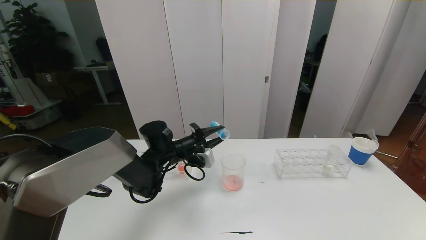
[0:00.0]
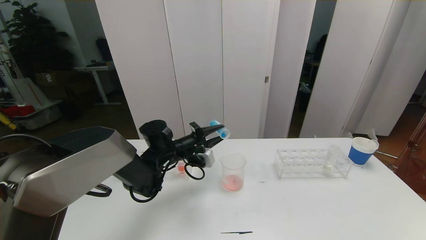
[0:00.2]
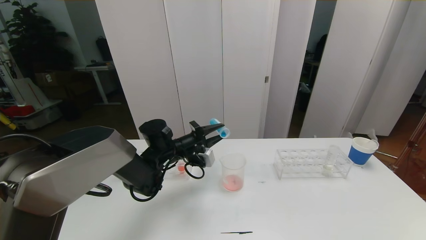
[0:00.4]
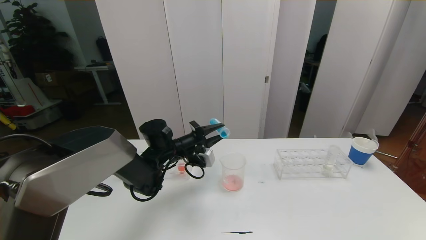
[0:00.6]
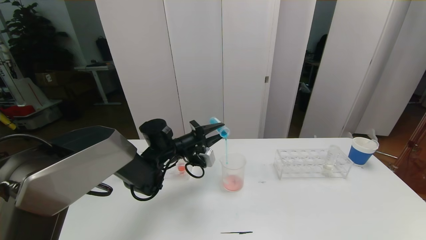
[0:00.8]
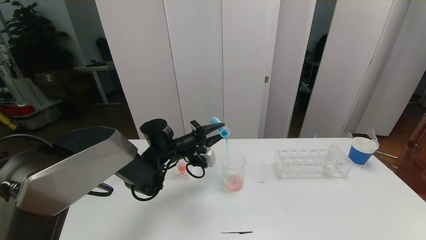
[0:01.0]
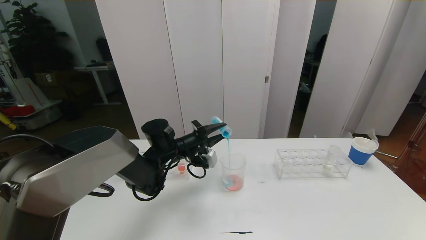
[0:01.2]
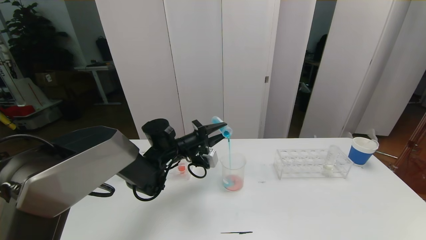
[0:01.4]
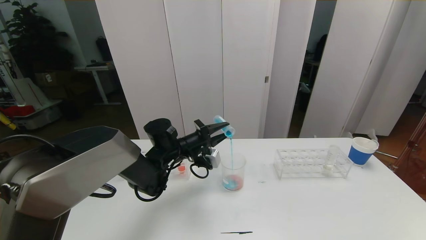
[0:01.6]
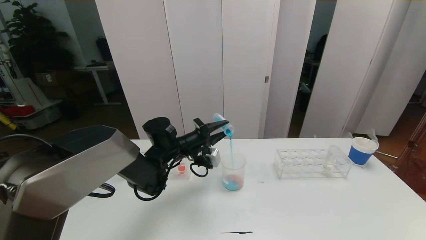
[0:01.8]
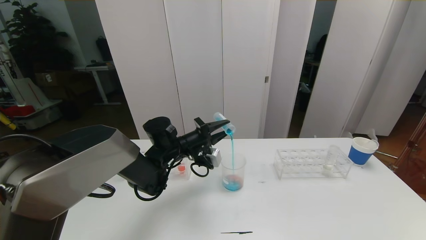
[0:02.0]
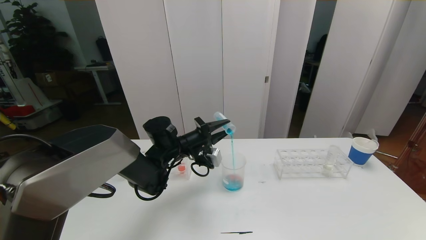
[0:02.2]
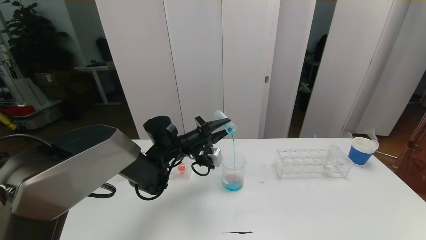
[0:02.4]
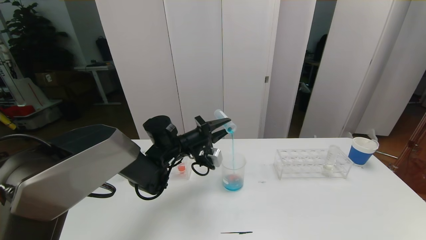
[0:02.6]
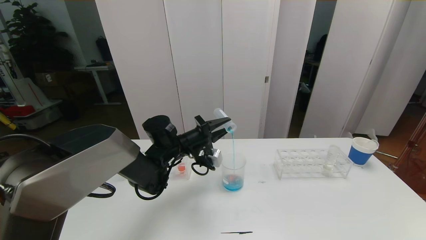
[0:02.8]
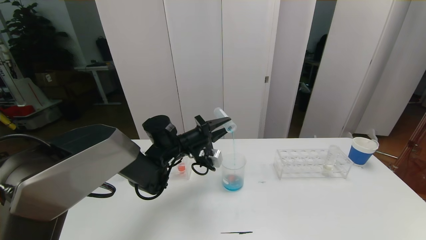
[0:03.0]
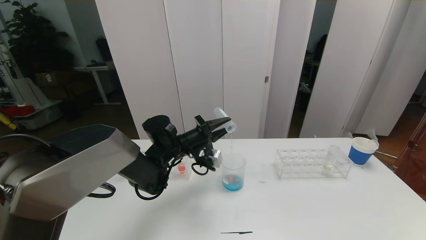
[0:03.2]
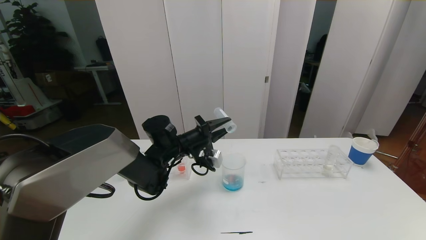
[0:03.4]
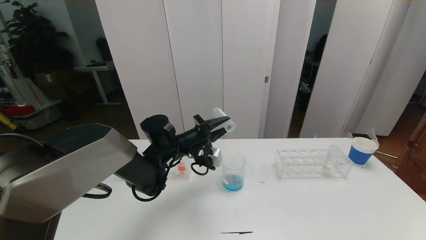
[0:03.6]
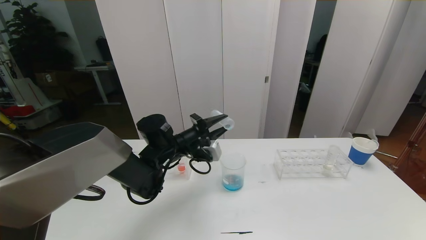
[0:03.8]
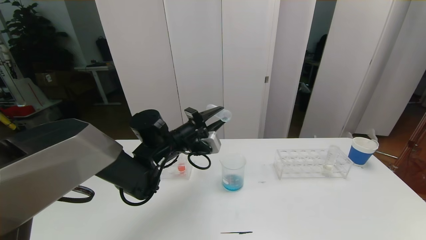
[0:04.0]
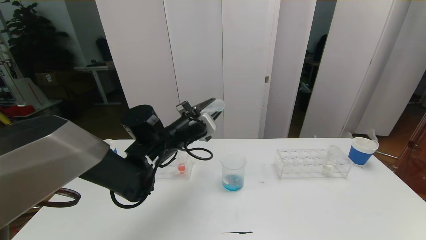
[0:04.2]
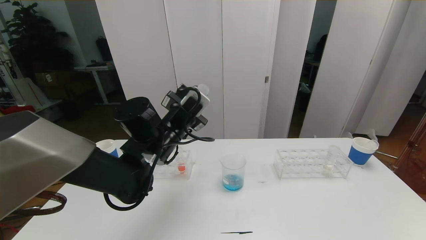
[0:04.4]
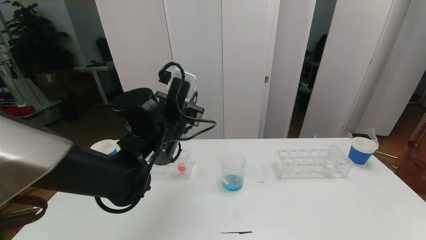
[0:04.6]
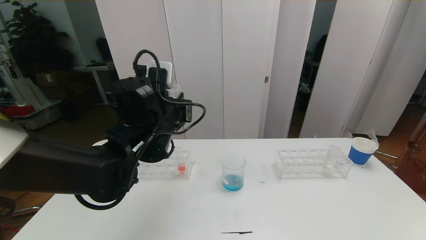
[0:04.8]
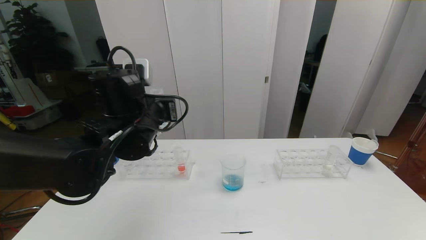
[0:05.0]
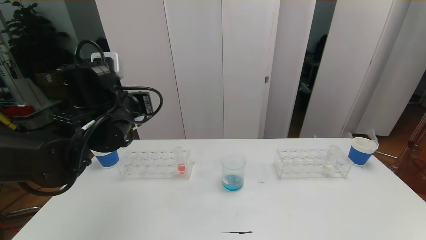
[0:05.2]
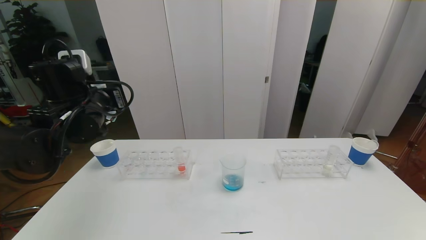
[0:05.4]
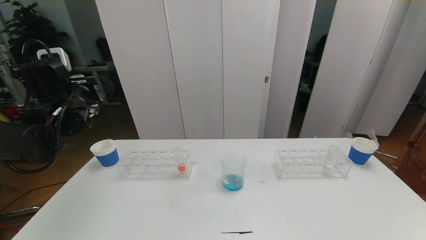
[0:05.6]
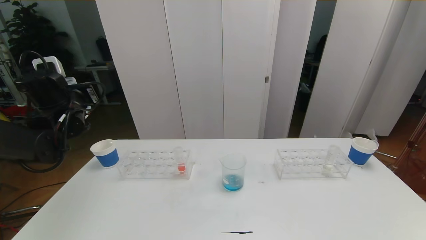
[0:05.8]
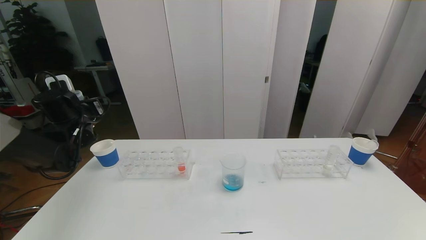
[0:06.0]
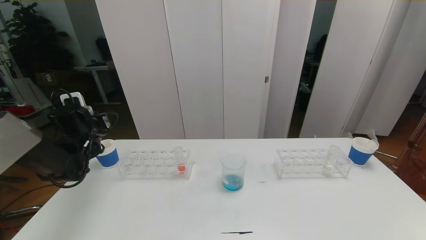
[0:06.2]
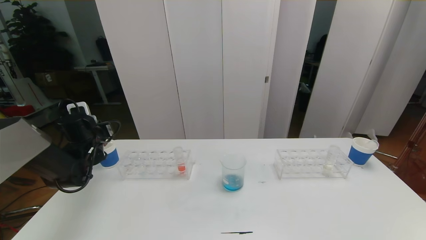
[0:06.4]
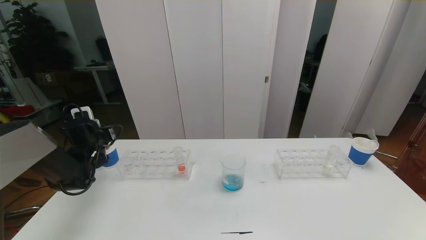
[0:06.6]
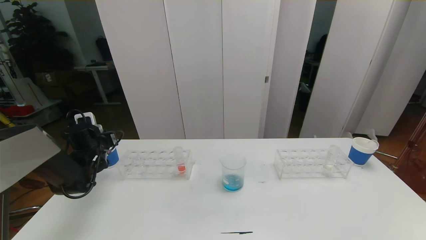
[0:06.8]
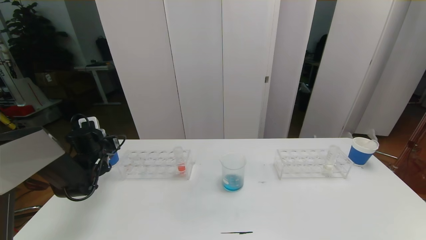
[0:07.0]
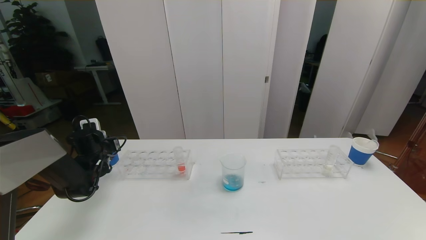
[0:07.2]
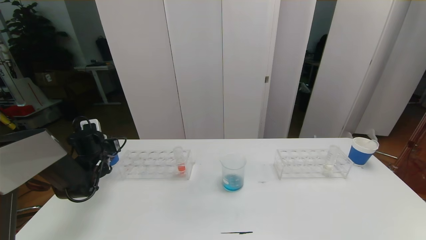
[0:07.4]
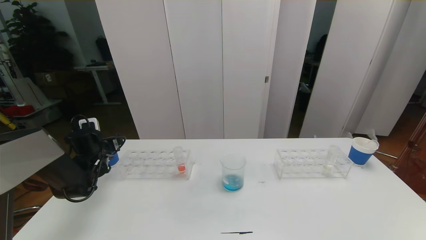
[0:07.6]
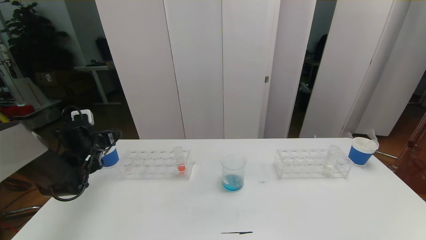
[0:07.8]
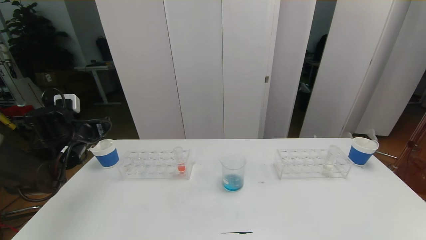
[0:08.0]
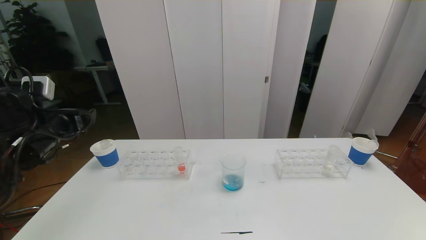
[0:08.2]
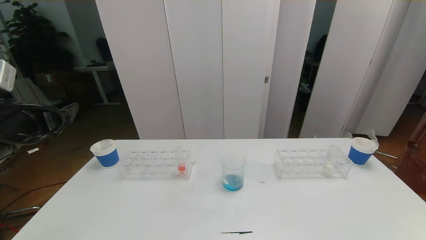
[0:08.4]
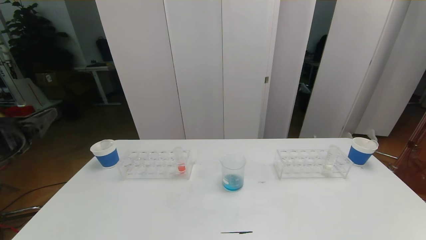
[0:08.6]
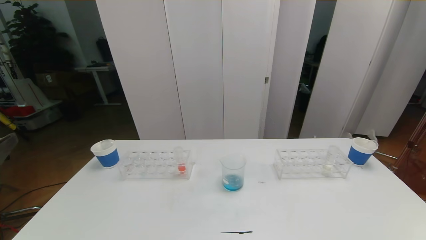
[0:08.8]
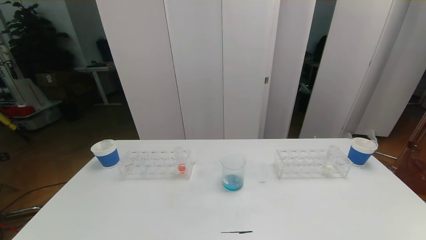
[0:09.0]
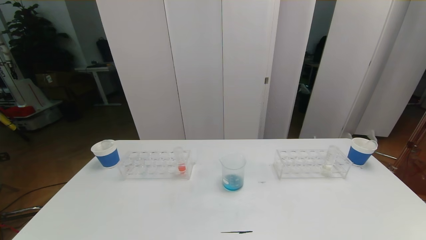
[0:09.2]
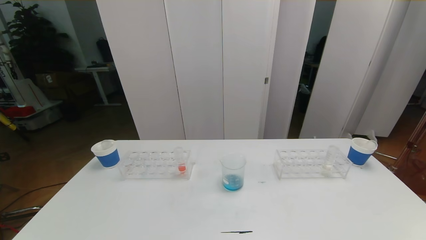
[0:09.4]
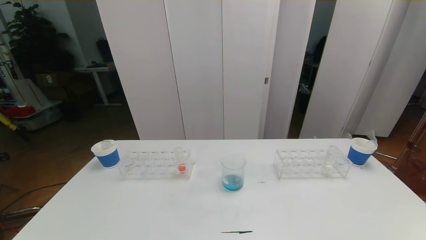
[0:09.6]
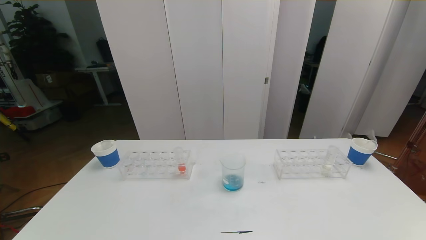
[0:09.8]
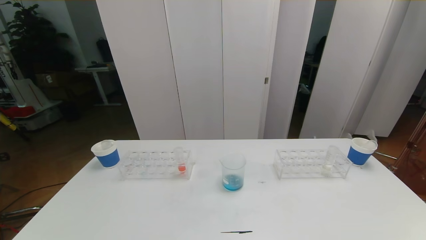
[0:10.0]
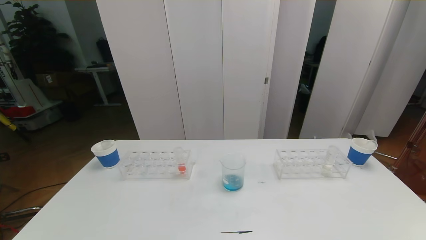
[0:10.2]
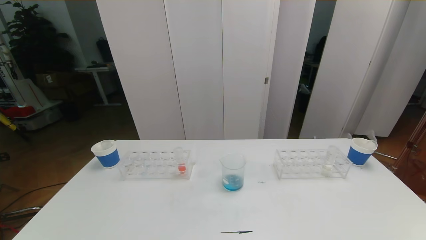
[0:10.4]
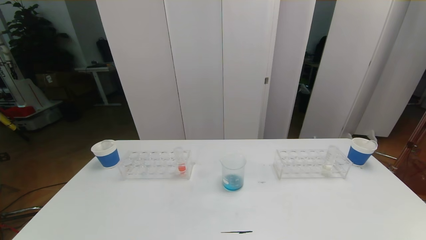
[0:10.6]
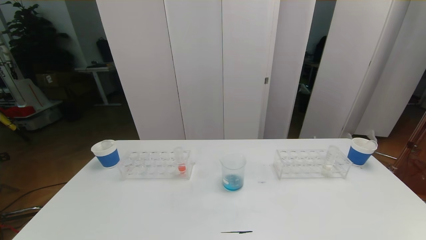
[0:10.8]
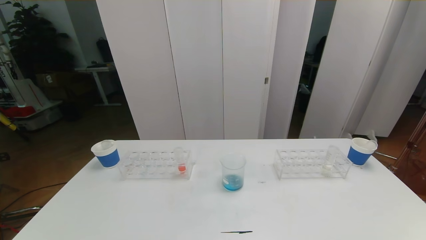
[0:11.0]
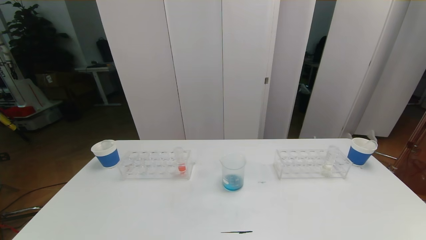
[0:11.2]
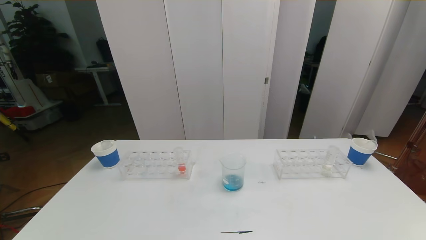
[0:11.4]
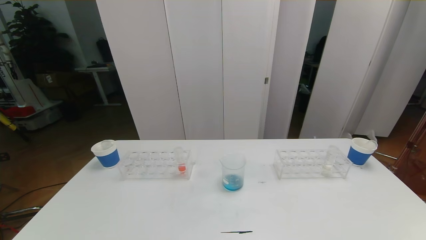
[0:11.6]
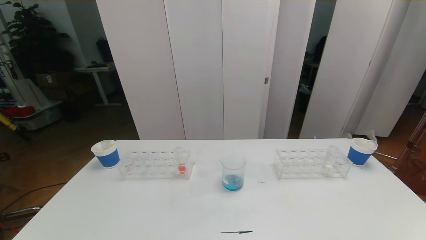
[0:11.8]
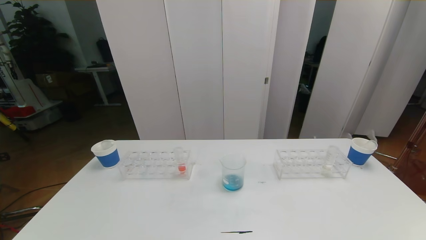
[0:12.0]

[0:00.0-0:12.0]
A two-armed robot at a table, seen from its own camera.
Task of the whole recording: pick up the test tube with red pigment the test tube with blue pigment and the test tube with white pigment by grippers and pour them into the beaker.
Step, 0:00.0 to 0:10.0: Pour the blue reagent into the graduated cylinder and place the test tube into the paper cup.
0:00.0 to 0:03.0: The grippers move only a little.
0:03.0 to 0:04.4: The left gripper moves upward and backward, some 10 cm.
0:04.4 to 0:06.0: The left gripper shifts roughly 25 cm to the left.
0:06.0 to 0:07.6: The left gripper travels downward by about 10 cm, and opens up.
0:07.6 to 0:09.0: The left gripper travels backward and upward by about 40 cm.
0:10.4 to 0:12.0: The two grippers keep their place.

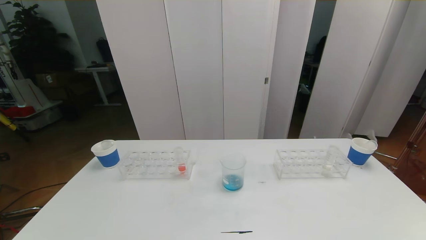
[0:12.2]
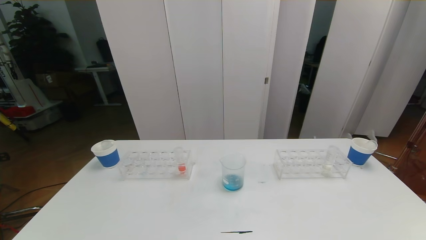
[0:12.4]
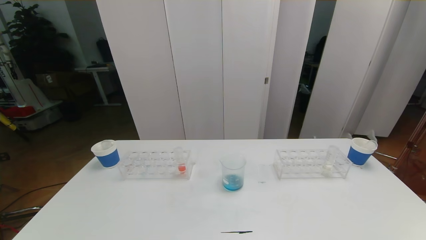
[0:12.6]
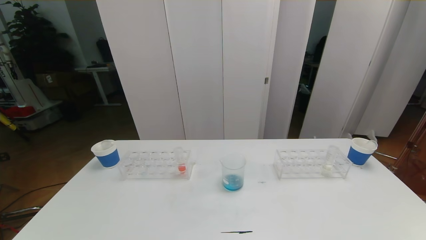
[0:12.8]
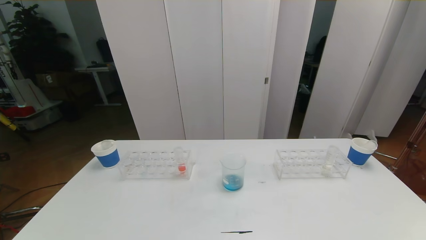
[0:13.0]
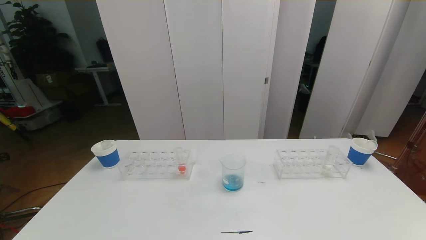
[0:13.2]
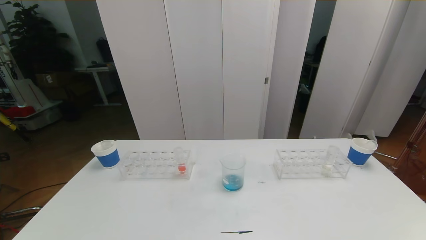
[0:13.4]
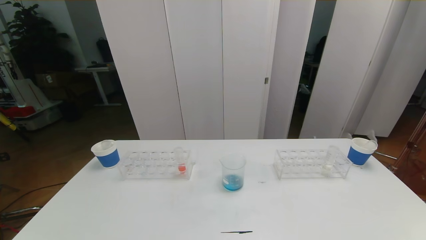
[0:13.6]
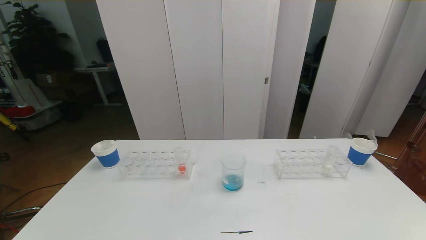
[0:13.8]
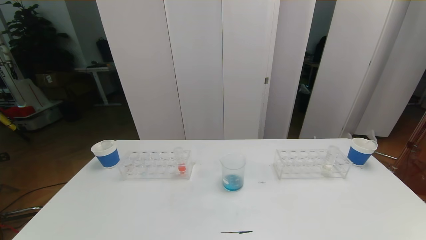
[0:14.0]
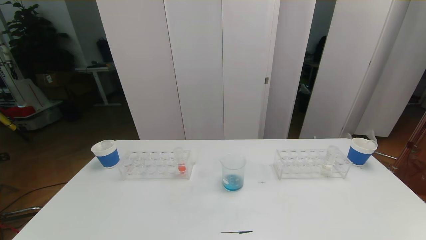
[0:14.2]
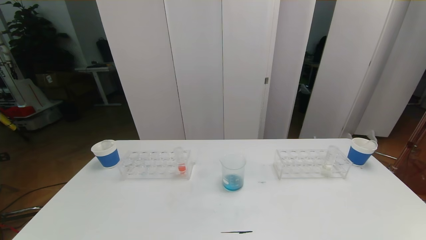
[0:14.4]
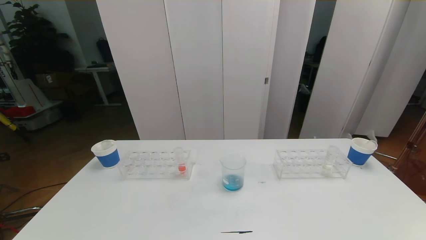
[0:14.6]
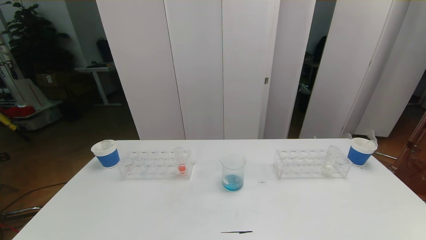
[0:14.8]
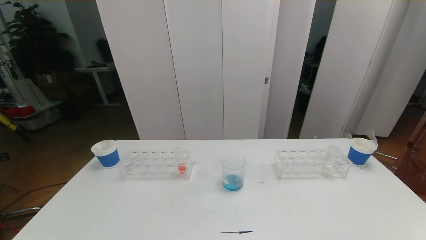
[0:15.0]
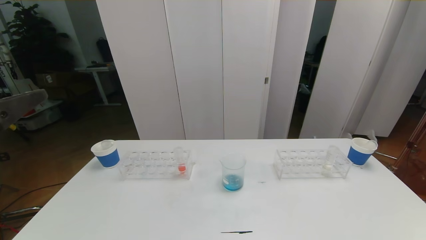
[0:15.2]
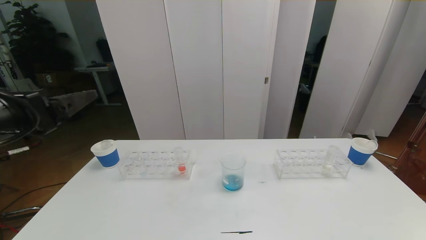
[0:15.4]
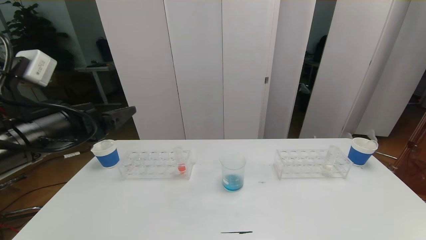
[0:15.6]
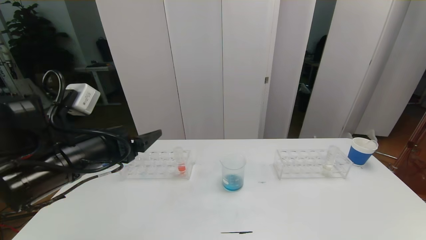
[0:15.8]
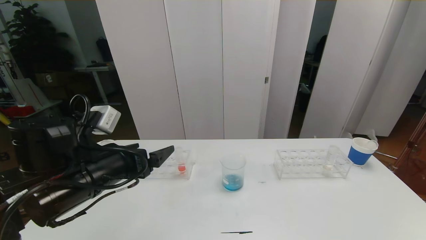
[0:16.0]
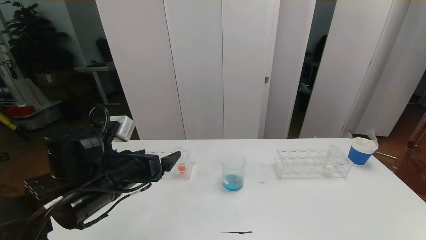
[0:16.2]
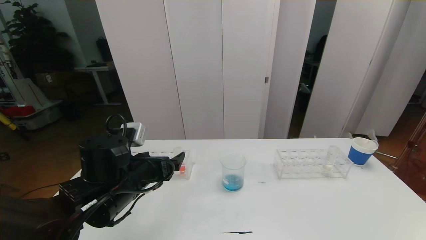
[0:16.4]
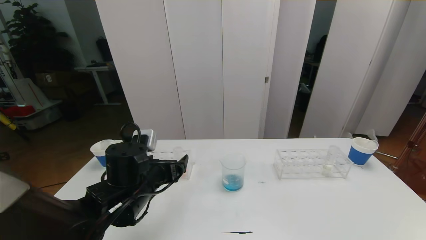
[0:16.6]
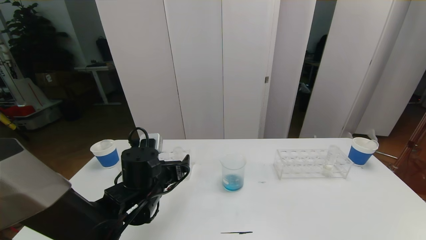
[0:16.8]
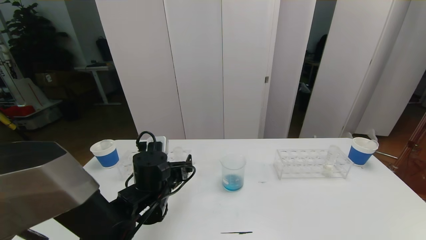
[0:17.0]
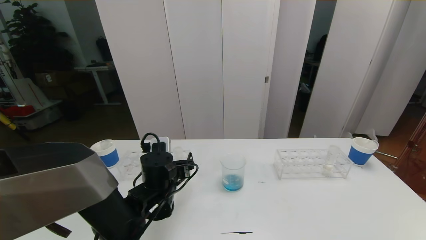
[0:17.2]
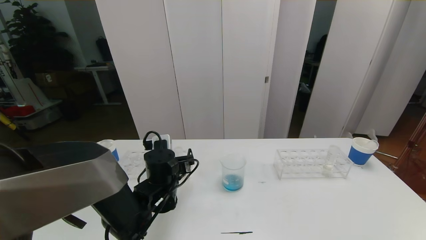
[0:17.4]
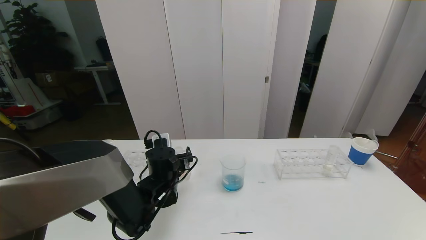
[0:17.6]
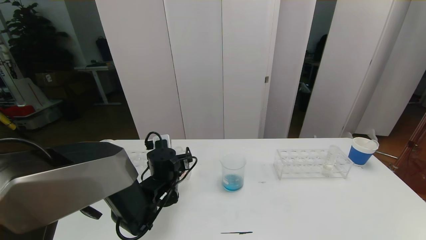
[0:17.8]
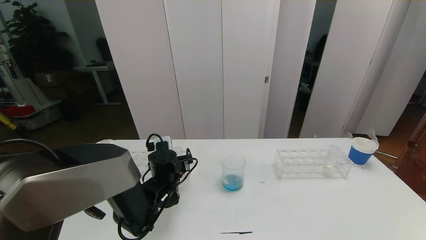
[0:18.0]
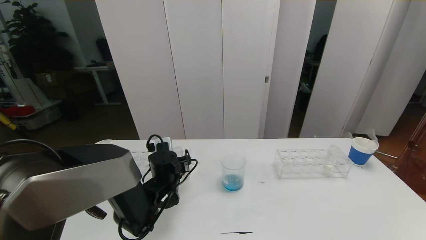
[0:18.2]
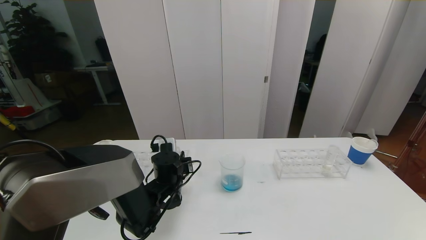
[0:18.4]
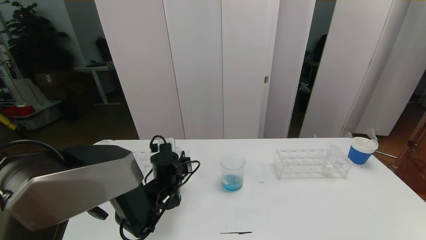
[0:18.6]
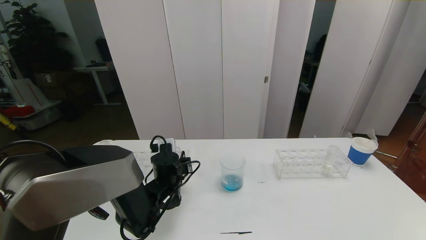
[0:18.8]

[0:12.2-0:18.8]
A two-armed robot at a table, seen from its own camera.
Task of the whole recording: pick up the test tube with red pigment the test tube with blue pigment and the test tube with white pigment by grippers and pour them into the beaker.
0:12.2 to 0:13.8: Both grippers stay put.
0:13.8 to 0:15.4: The left gripper goes about 30 cm upward and forward.
0:15.4 to 0:17.2: The left gripper travels downward, to the right and forward by some 30 cm.
0:17.2 to 0:18.8: The left gripper moves about 5 cm, and closes.
